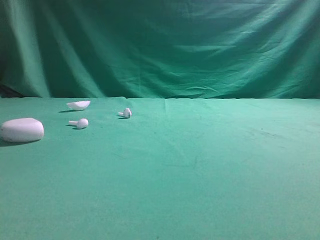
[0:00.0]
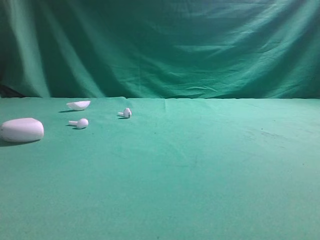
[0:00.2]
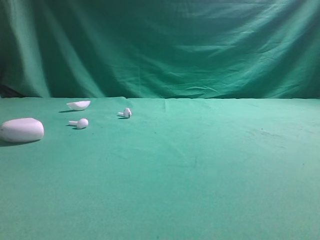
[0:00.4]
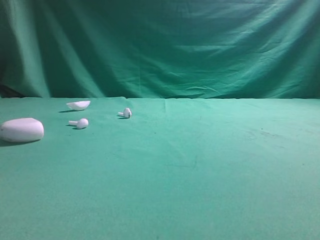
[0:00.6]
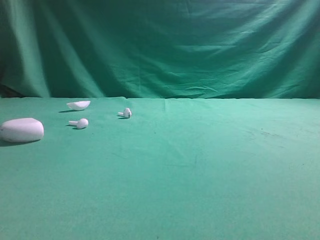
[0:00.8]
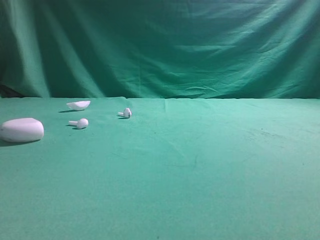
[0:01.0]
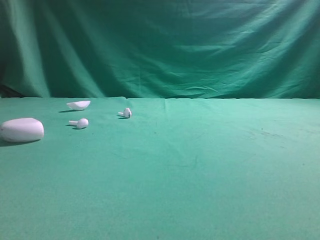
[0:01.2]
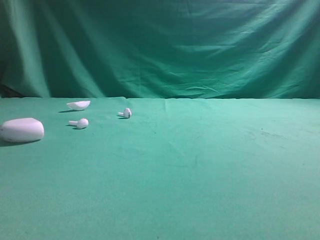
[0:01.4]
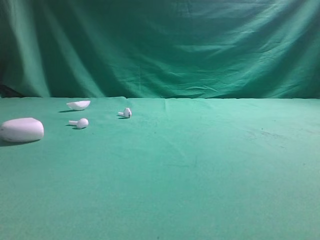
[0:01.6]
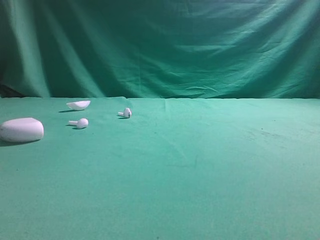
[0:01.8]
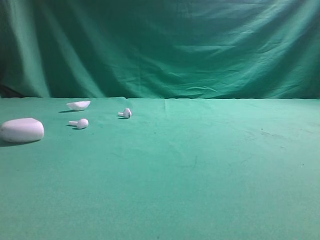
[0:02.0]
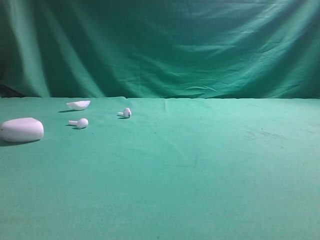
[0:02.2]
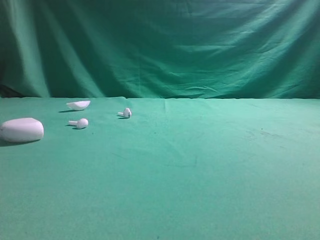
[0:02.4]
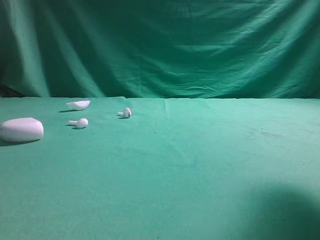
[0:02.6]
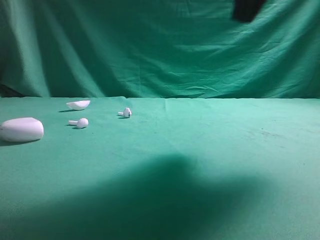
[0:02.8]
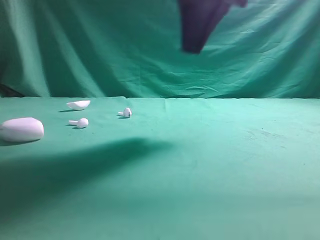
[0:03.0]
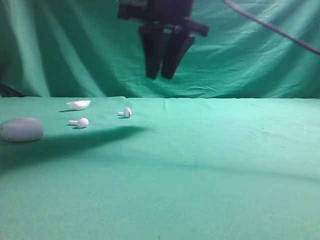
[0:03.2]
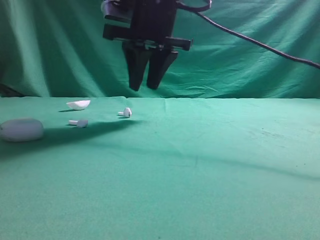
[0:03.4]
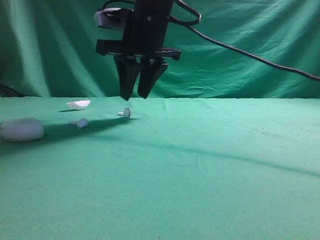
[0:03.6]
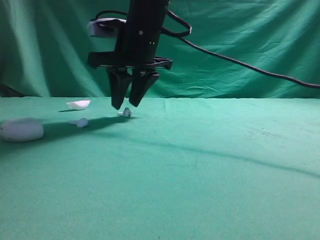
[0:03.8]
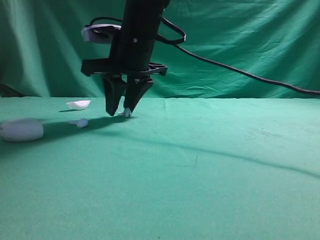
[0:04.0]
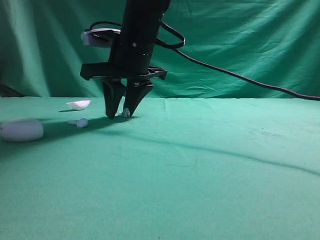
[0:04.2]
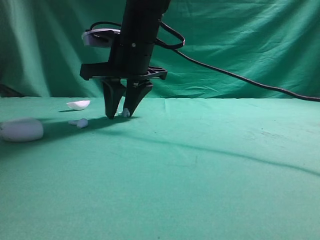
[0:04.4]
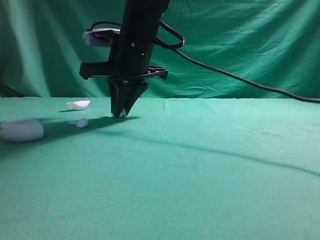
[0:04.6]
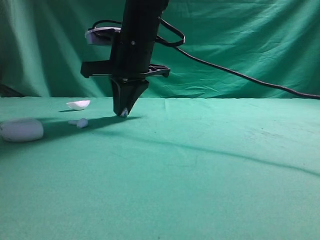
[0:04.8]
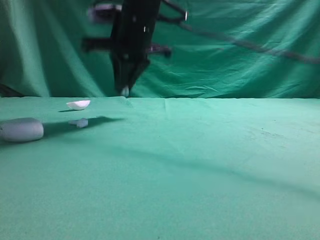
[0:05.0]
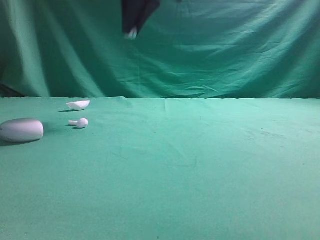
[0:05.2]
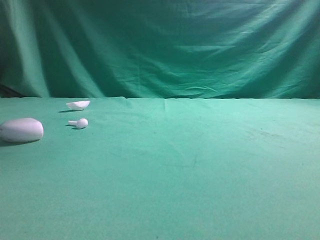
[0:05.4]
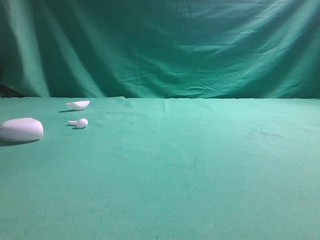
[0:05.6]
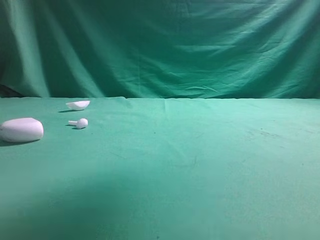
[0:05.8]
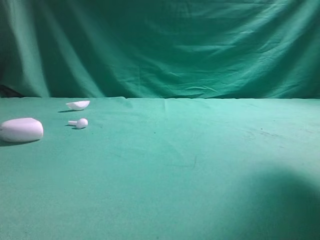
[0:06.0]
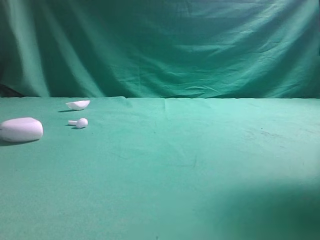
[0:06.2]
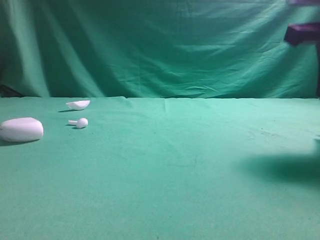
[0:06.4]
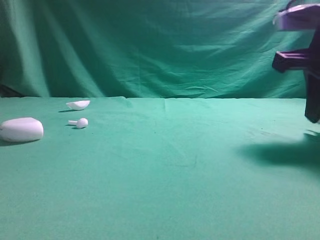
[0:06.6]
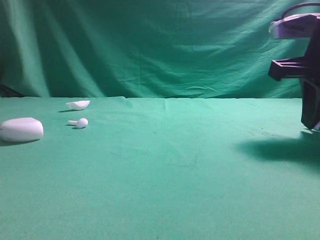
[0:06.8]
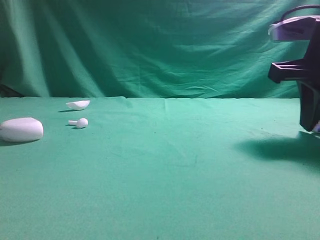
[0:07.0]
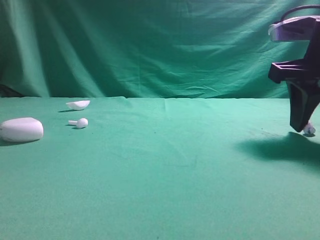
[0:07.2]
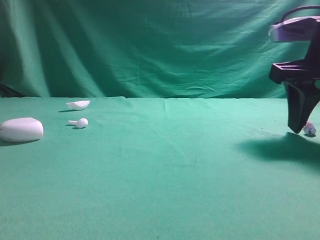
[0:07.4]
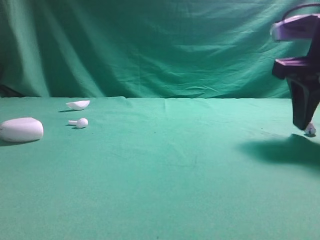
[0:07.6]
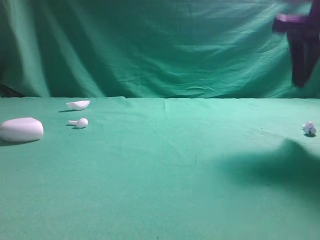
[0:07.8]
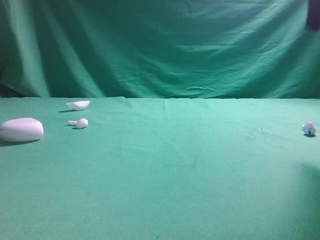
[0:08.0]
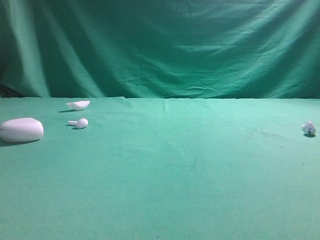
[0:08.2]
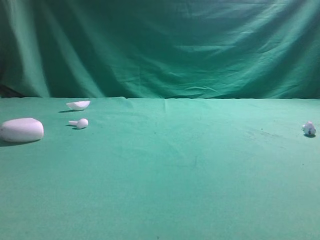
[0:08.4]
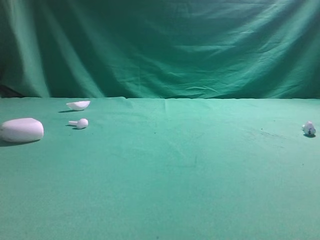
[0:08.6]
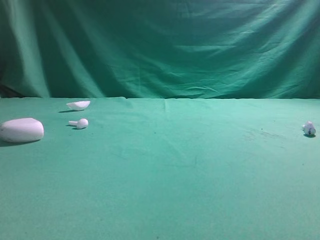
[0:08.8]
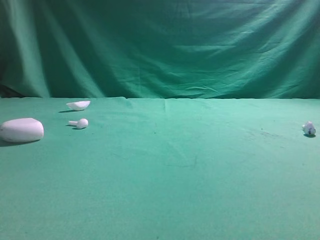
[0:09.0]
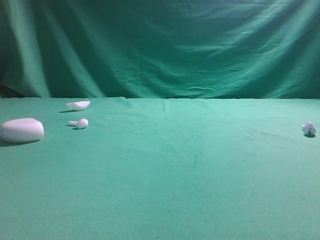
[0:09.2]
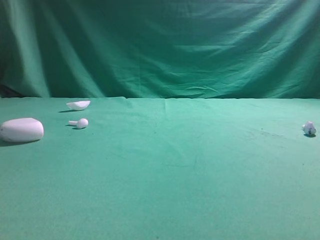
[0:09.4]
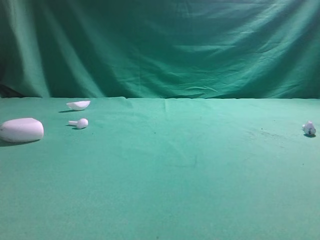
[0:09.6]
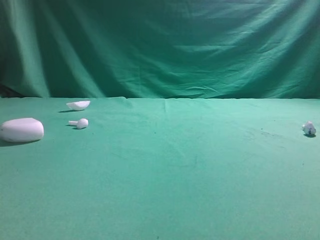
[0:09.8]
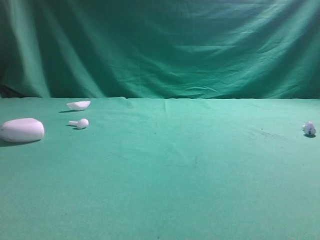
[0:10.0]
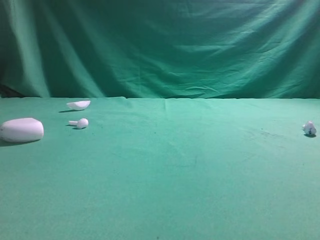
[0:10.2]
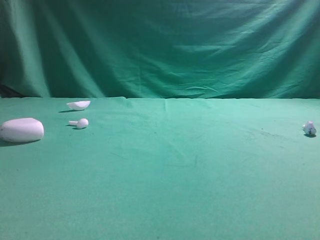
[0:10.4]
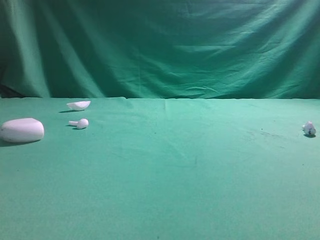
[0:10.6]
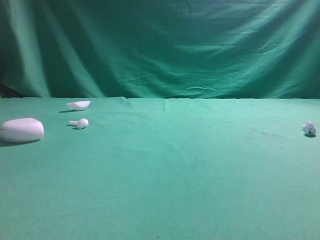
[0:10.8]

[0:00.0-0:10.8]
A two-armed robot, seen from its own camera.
Step, 0:00.0 to 0:05.2: Grasp the Bluetooth earbud.
Step, 0:05.4 to 0:07.8: Place bluetooth earbud on the right side of the table.

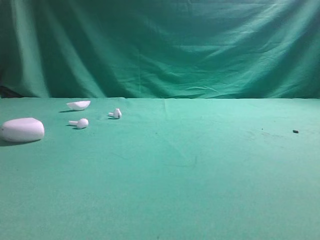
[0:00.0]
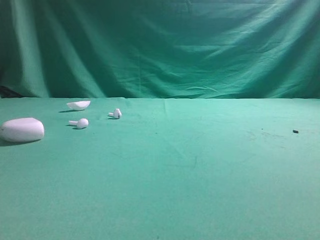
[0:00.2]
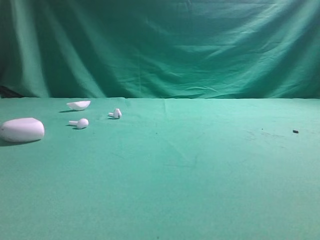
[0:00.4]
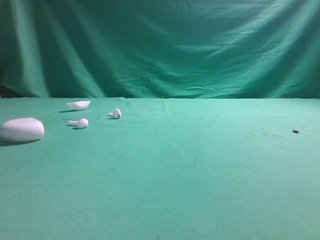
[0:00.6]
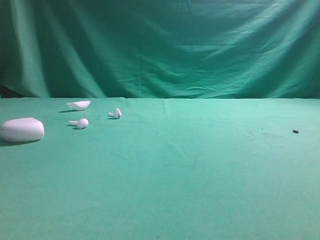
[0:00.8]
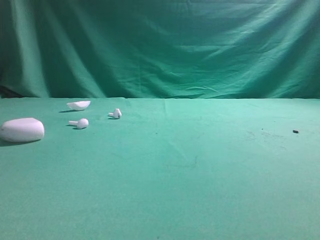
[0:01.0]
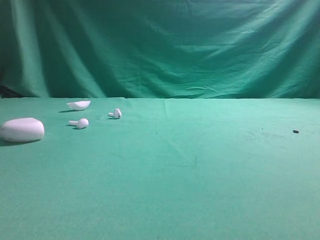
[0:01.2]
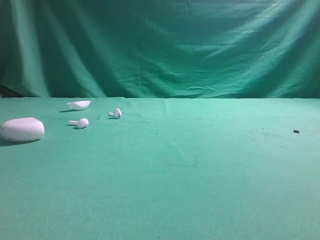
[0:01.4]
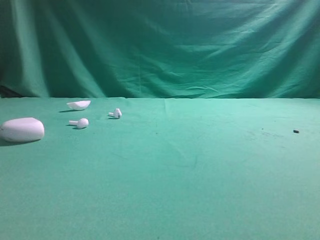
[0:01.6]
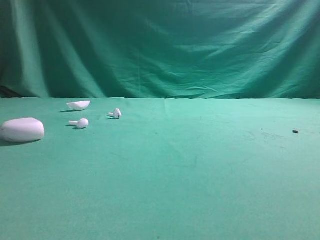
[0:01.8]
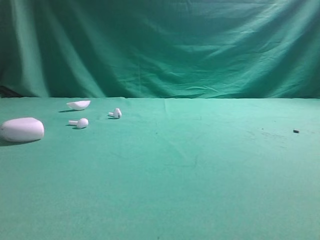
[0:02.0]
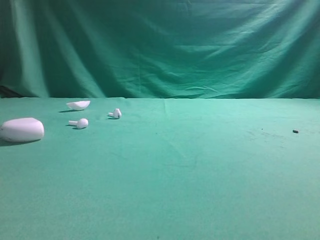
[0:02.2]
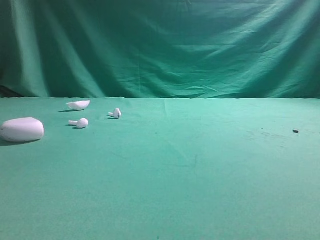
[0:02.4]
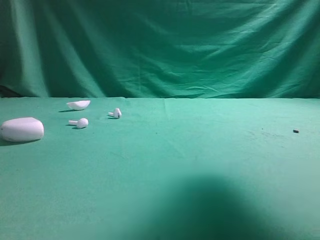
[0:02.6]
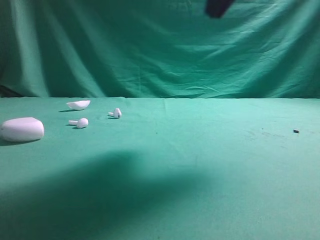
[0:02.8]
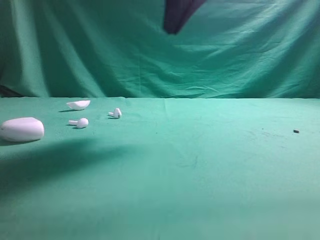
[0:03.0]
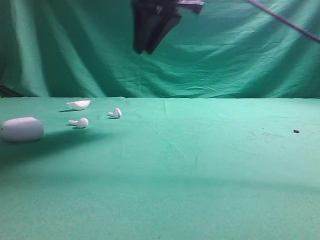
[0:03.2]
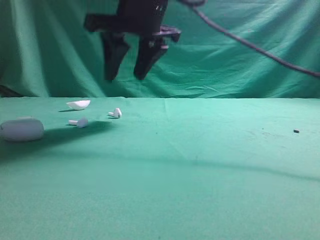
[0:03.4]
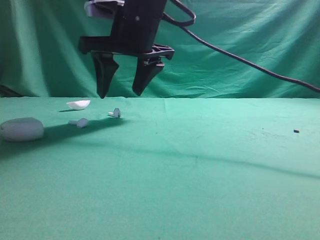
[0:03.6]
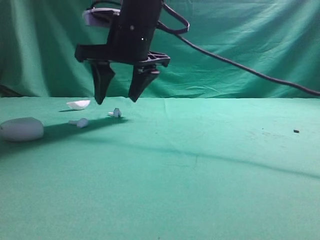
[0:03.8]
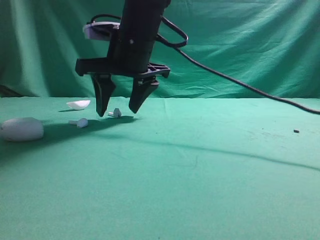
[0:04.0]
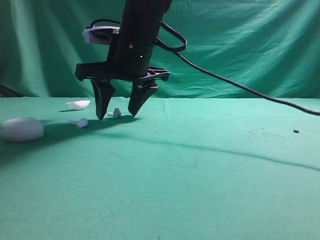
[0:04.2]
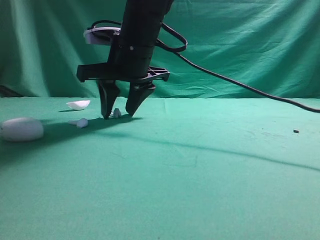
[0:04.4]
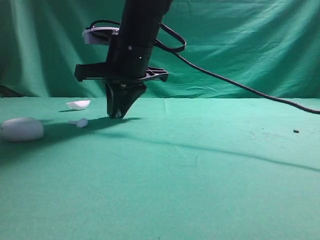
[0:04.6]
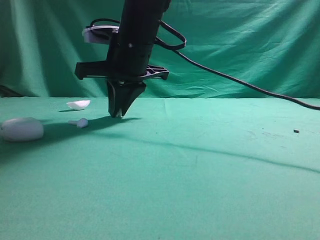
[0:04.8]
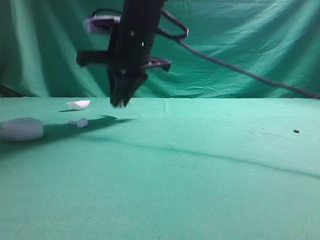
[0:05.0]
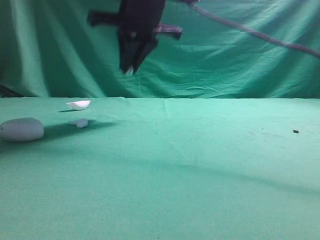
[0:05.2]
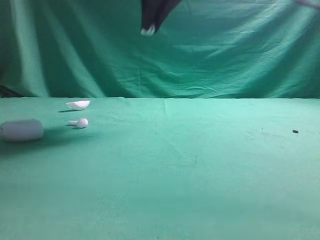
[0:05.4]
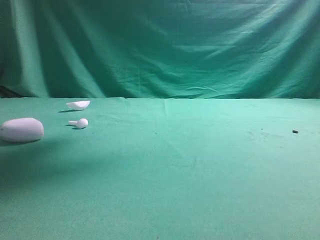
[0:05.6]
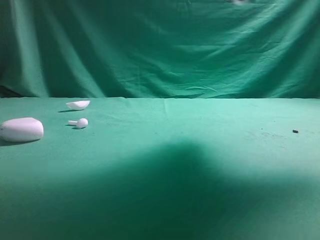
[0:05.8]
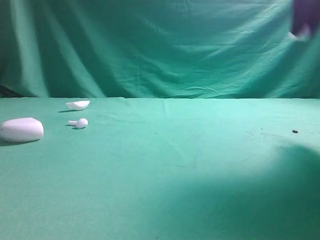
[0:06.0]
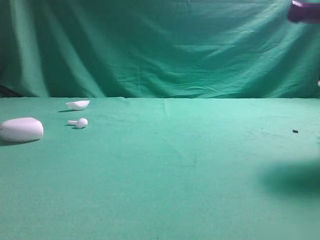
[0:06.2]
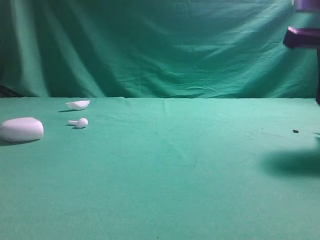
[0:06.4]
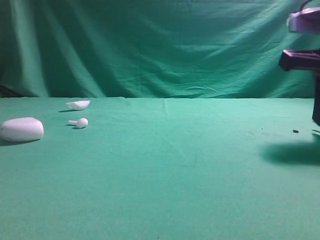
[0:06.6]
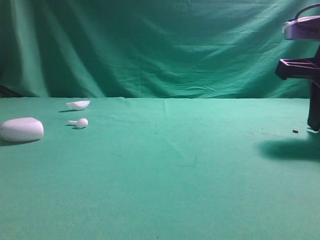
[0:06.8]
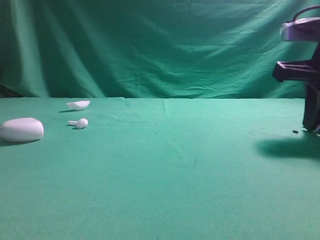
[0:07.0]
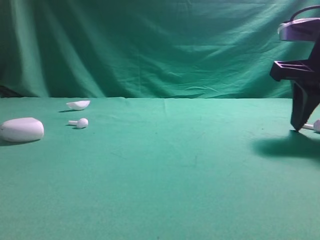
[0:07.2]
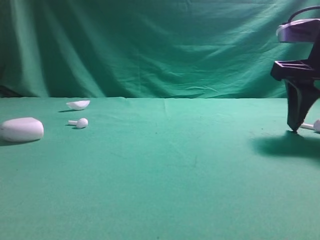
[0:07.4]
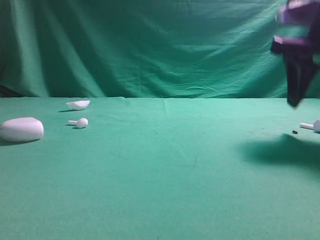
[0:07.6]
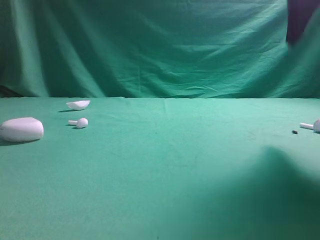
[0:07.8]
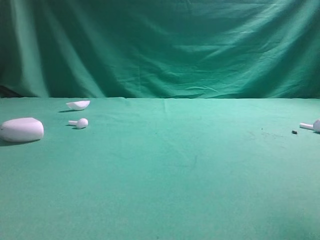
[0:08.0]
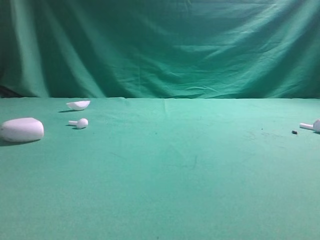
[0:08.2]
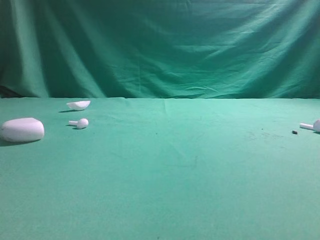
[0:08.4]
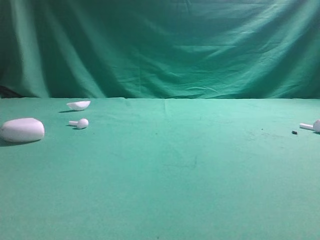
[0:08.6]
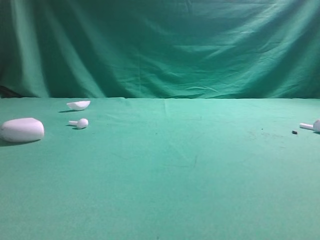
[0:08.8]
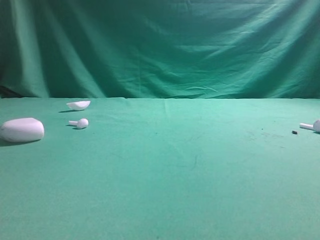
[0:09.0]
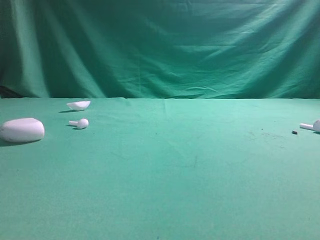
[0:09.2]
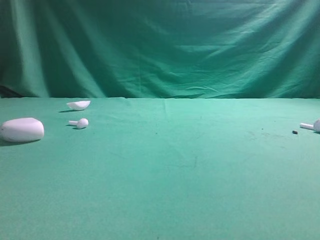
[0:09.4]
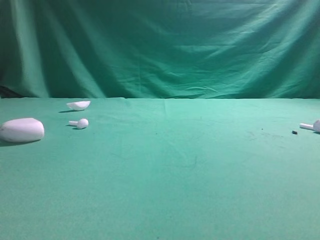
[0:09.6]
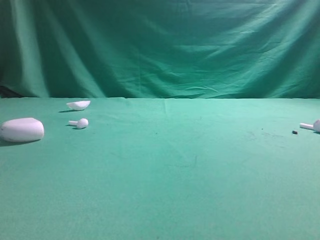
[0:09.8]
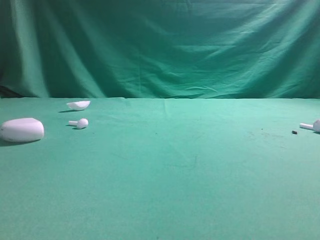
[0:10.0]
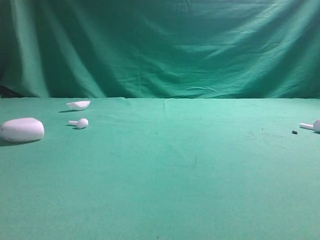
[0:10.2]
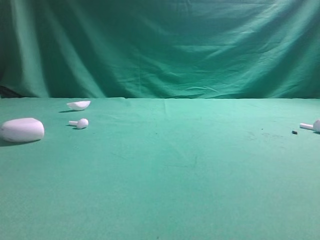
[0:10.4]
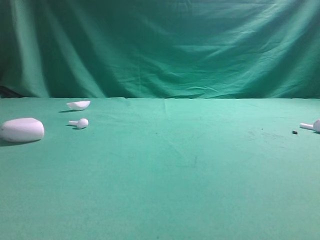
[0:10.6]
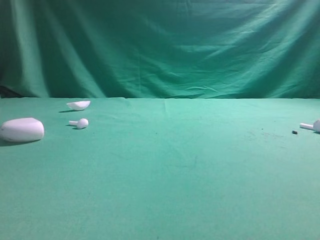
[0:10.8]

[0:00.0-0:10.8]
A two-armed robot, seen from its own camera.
Step, 0:00.0 to 0:05.2: Grasp the Bluetooth earbud.
Step, 0:05.4 to 0:07.4: Place bluetooth earbud on the right side of the table.

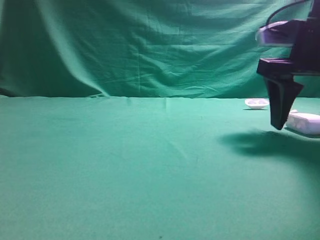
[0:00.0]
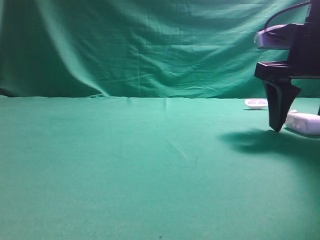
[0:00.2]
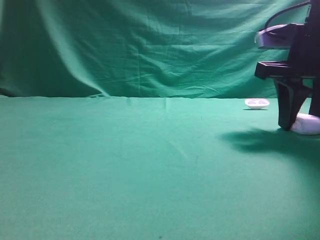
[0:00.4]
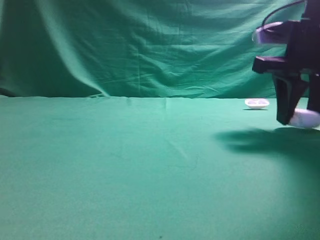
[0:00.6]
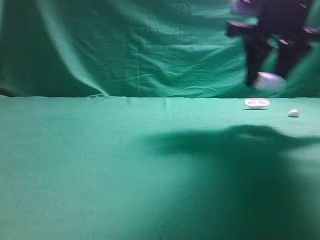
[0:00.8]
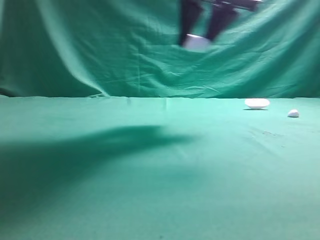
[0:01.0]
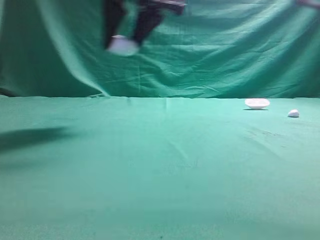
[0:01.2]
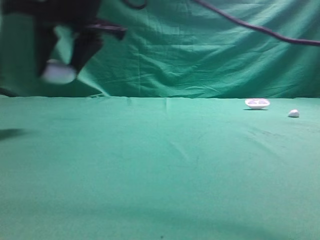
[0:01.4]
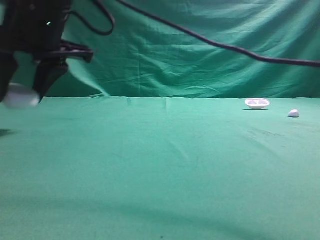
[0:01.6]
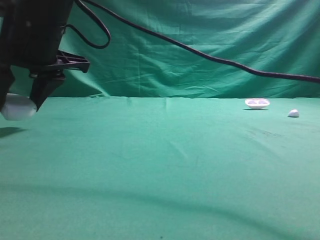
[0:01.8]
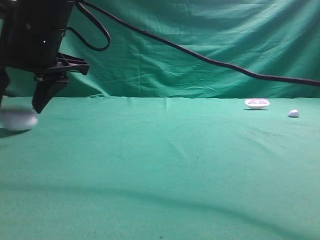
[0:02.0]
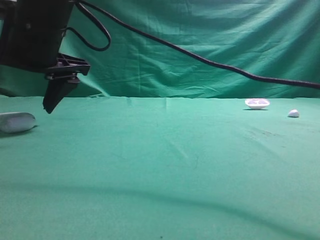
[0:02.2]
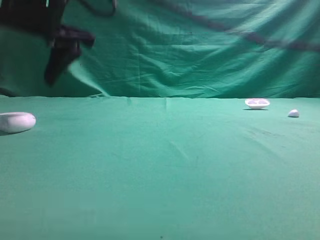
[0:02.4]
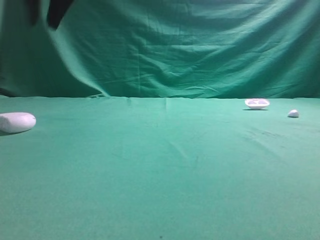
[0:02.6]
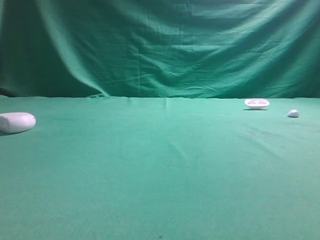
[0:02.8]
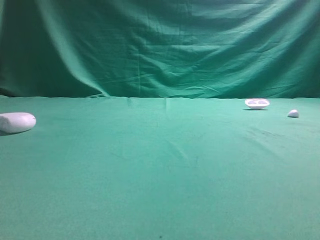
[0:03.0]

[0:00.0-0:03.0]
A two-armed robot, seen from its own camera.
Step, 0:01.0 to 0:02.4: Place bluetooth earphone case on the left side of the table.
